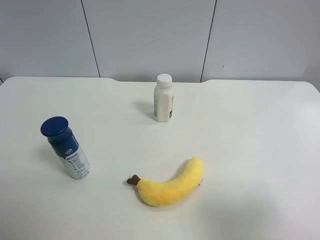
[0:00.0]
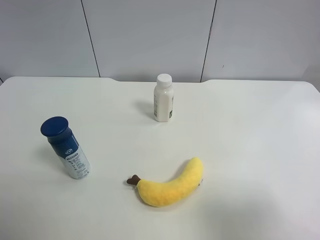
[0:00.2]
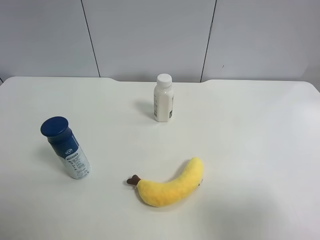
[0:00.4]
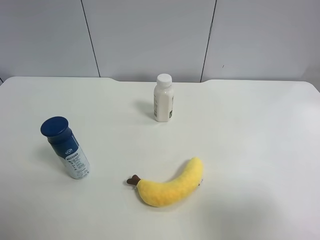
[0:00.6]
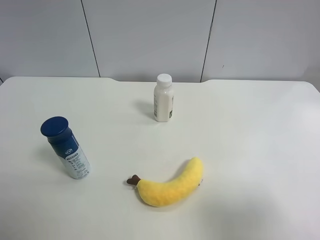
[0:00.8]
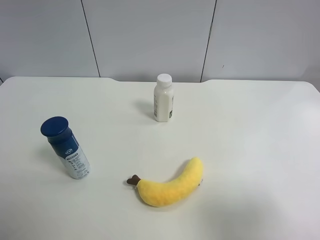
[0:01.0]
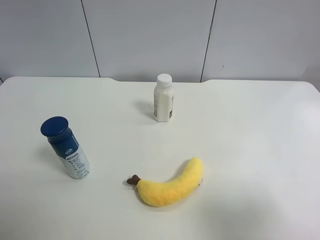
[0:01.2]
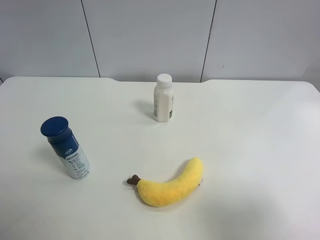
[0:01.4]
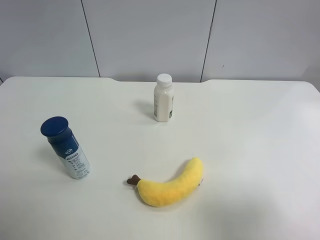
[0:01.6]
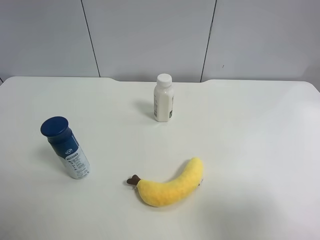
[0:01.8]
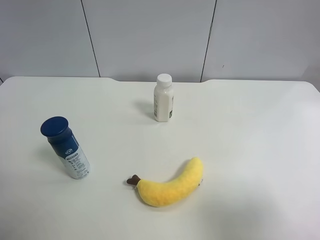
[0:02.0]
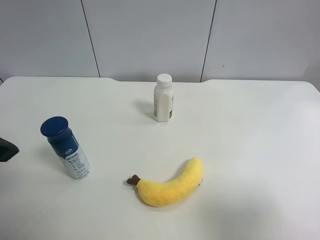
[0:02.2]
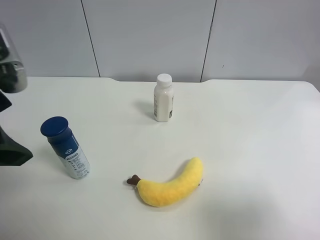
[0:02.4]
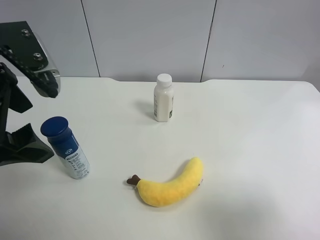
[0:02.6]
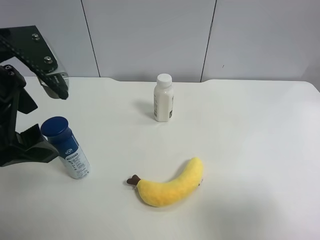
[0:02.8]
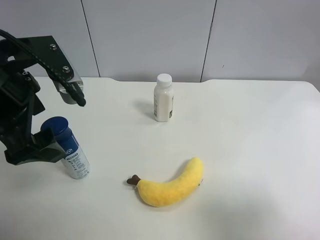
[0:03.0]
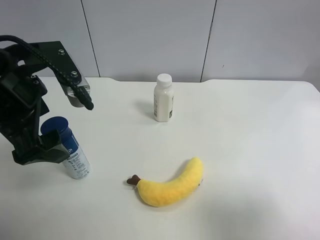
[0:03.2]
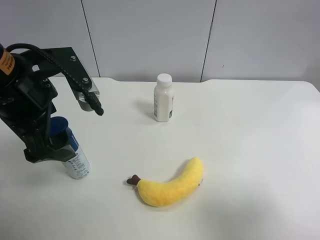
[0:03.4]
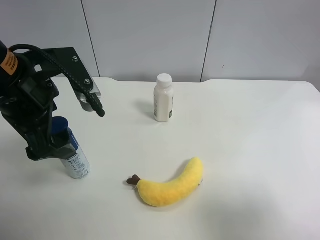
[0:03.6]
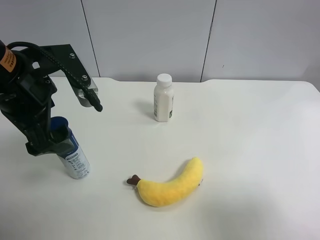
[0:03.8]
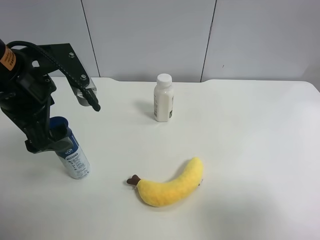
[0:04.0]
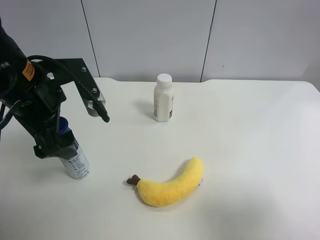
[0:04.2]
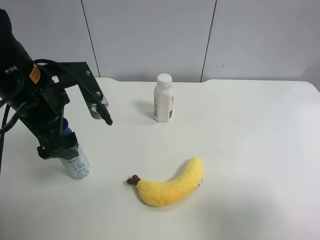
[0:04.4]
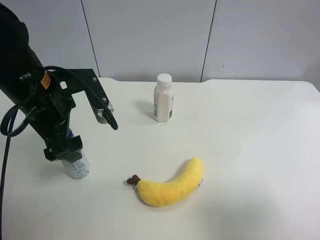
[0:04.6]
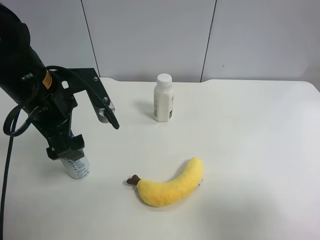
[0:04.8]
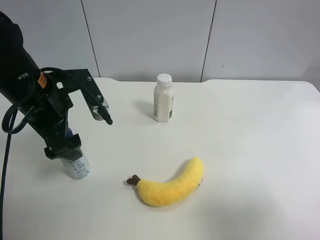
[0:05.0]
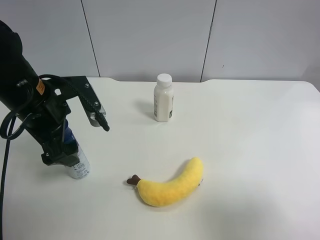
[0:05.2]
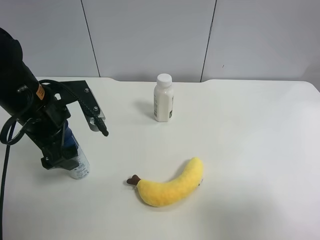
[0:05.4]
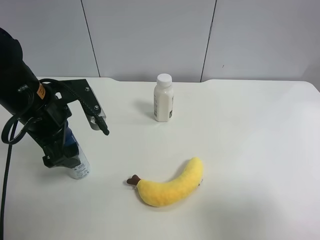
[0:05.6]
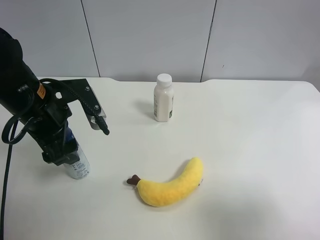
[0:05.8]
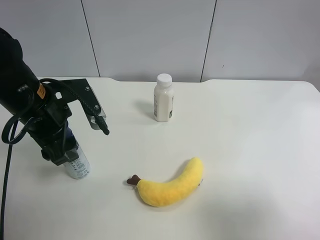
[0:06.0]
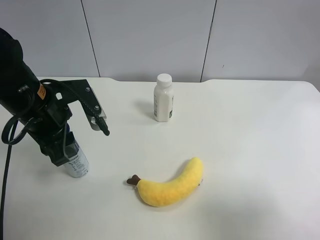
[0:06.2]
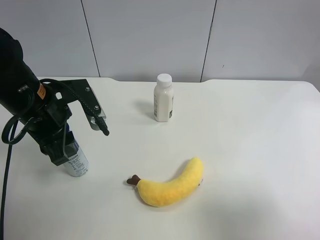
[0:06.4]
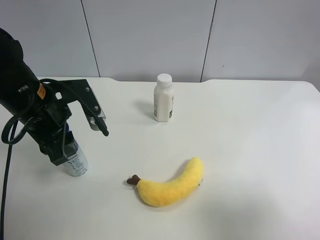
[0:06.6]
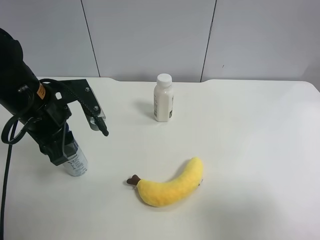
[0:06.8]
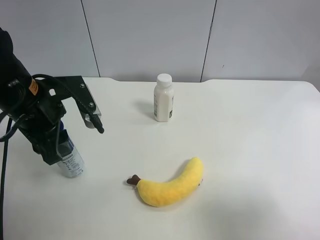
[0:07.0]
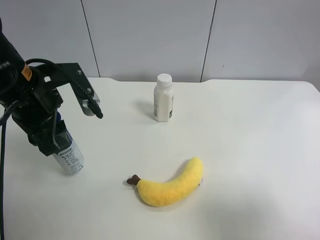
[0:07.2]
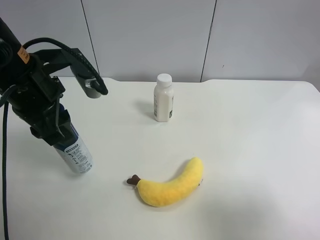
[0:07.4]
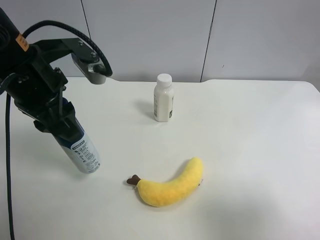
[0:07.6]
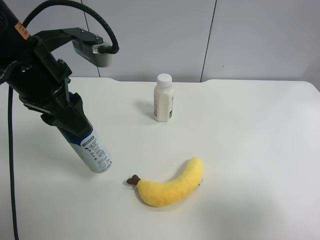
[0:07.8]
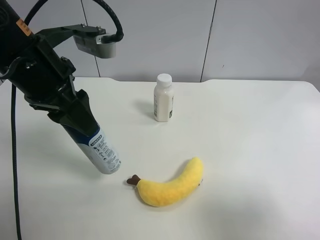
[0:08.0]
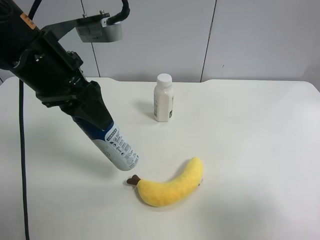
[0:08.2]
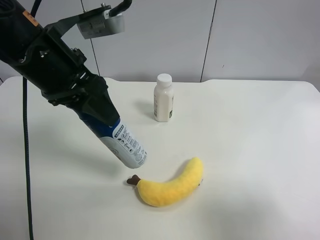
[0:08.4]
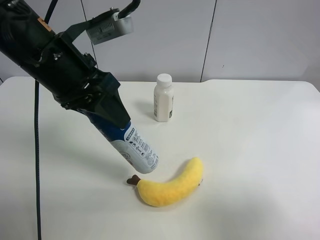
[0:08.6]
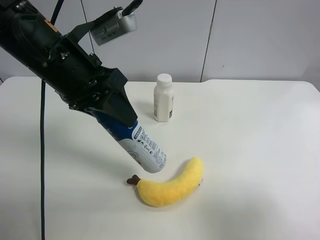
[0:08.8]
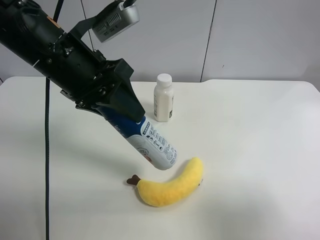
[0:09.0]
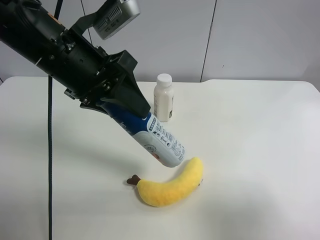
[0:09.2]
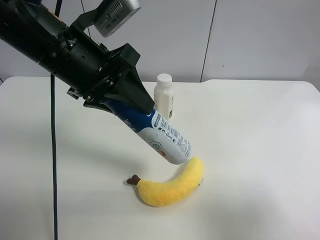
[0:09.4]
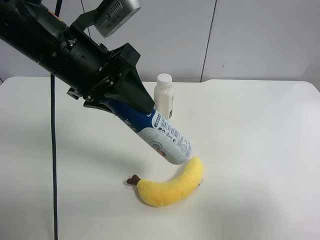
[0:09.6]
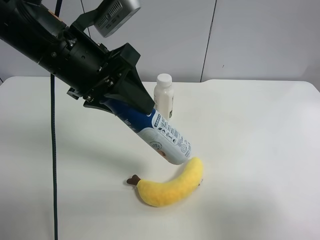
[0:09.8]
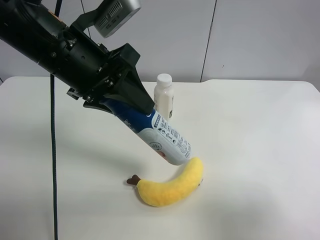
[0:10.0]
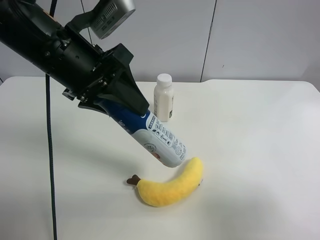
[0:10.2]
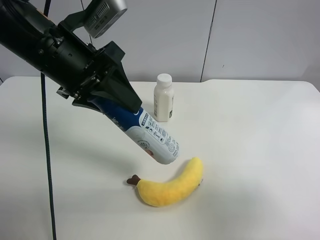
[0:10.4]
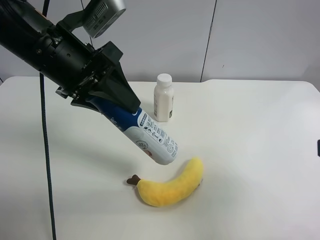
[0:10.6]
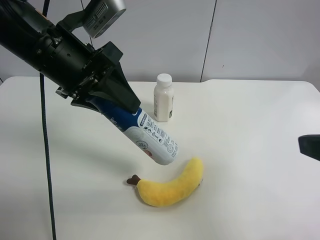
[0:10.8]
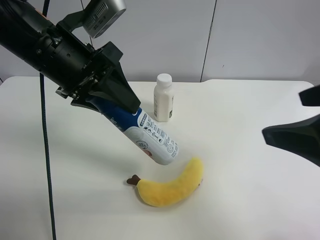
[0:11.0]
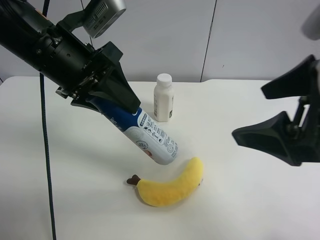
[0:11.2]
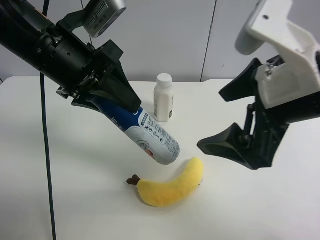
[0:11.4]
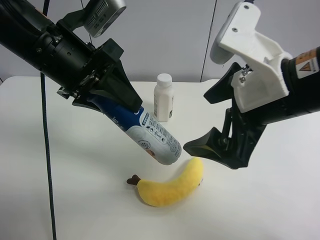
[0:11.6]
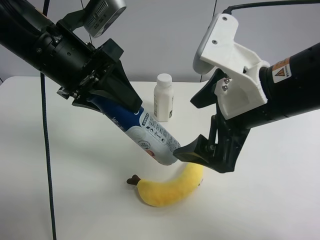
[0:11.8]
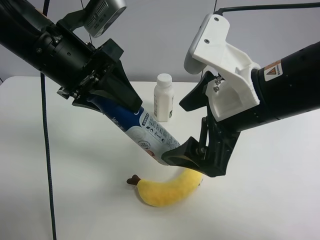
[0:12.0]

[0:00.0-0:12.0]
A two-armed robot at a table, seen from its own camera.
Task of the whole recording: use the left gripper to pick up the item and transfer it from the left gripper to the right gripper.
0:01.6 to 0:03.0: The left gripper goes some 15 cm to the right and forward.
0:03.0 to 0:04.4: The left gripper changes place by approximately 5 cm.
0:04.4 to 0:06.0: The left gripper closes.
0:06.0 to 0:07.6: The left gripper travels upward by some 5 cm.
0:09.0 to 0:10.4: The grippers stay close to where they were, moving slightly.
0:10.4 to 0:12.0: The right gripper moves to the left and forward, some 20 cm.

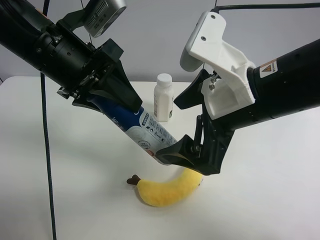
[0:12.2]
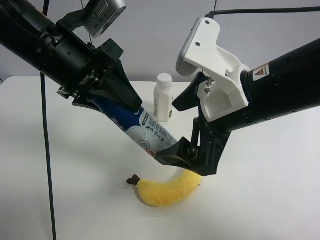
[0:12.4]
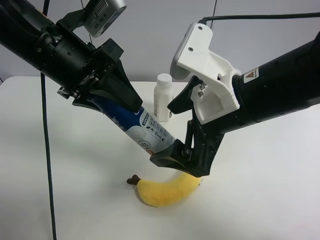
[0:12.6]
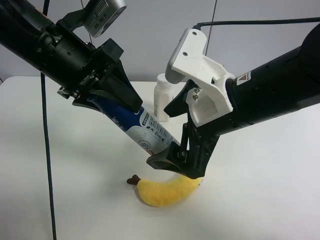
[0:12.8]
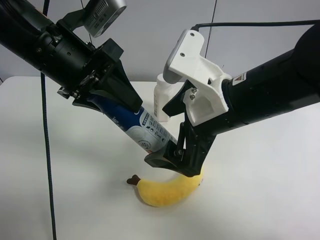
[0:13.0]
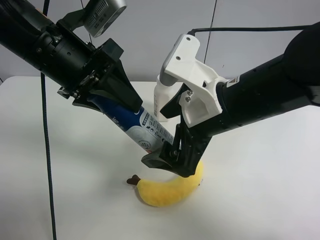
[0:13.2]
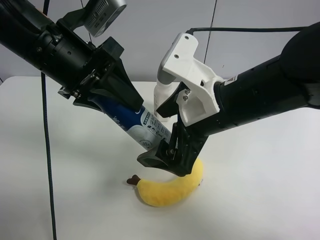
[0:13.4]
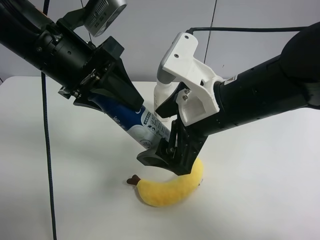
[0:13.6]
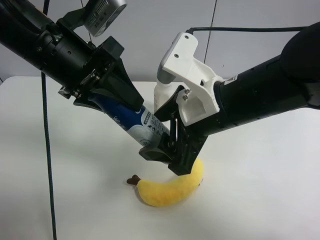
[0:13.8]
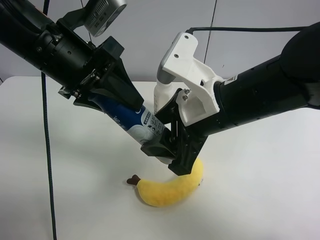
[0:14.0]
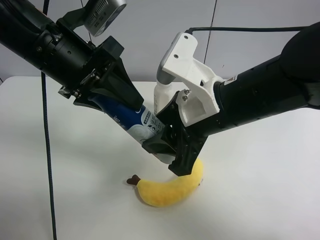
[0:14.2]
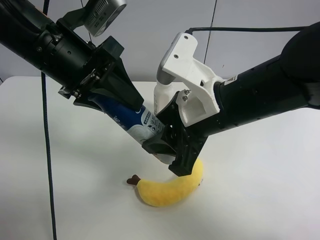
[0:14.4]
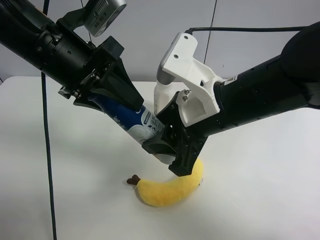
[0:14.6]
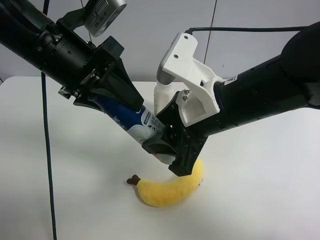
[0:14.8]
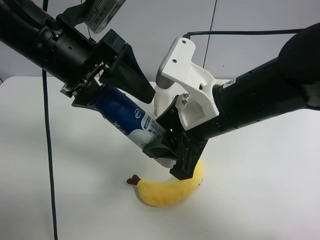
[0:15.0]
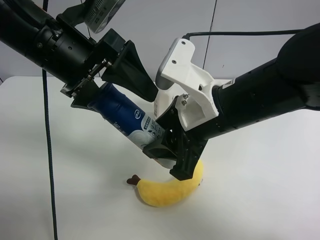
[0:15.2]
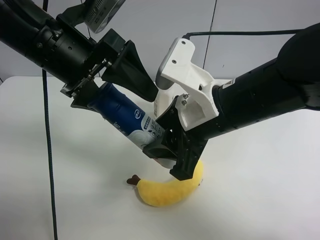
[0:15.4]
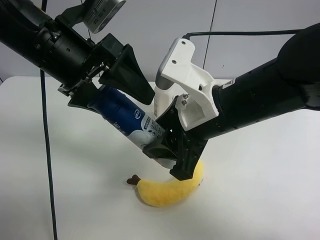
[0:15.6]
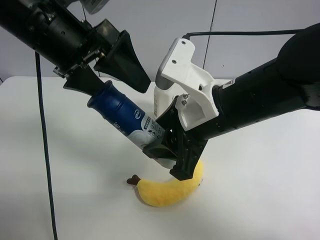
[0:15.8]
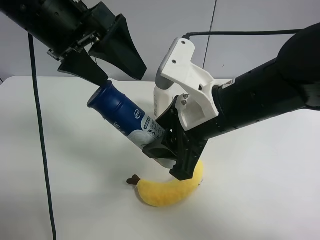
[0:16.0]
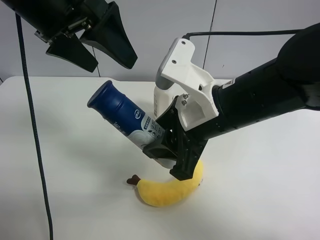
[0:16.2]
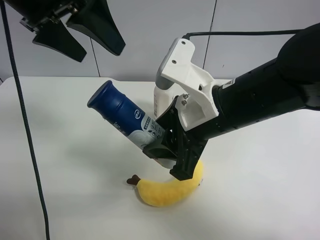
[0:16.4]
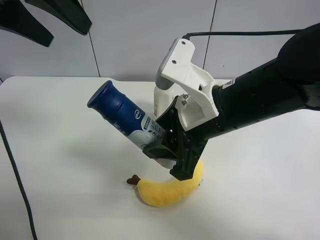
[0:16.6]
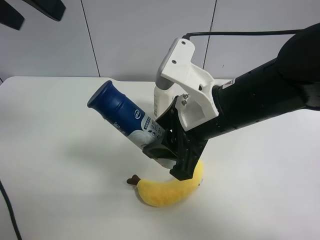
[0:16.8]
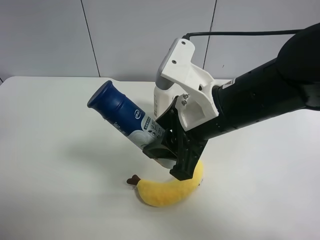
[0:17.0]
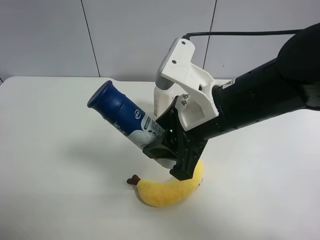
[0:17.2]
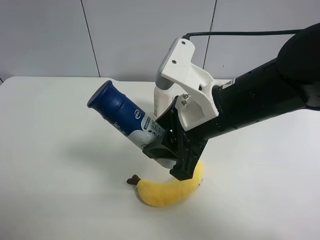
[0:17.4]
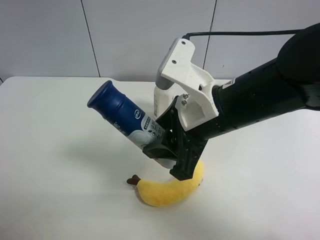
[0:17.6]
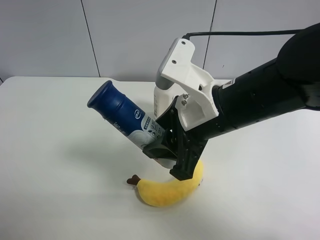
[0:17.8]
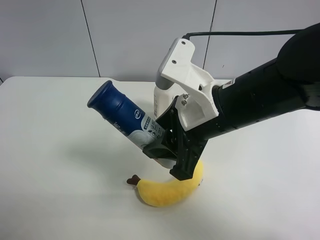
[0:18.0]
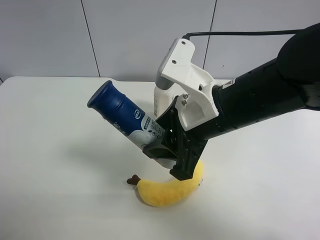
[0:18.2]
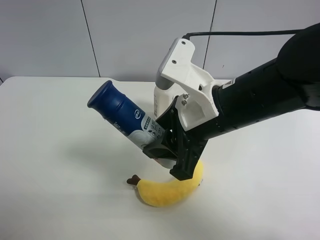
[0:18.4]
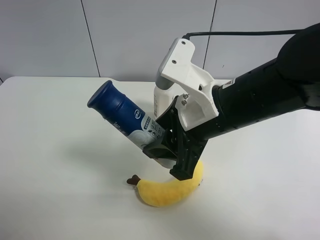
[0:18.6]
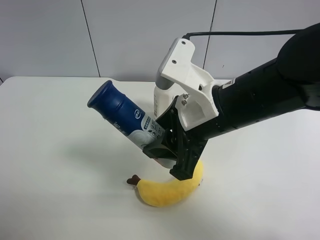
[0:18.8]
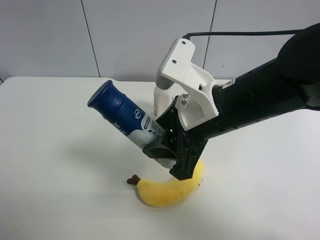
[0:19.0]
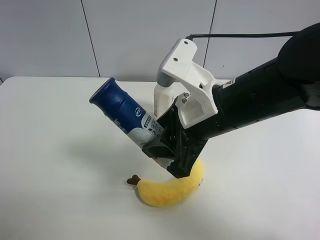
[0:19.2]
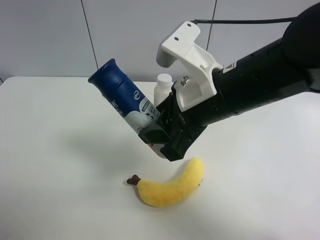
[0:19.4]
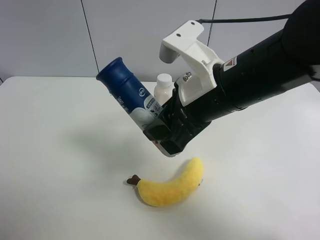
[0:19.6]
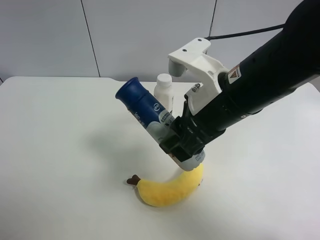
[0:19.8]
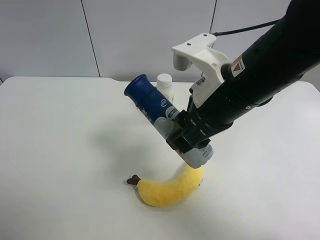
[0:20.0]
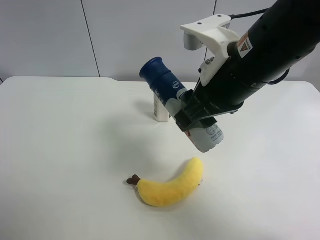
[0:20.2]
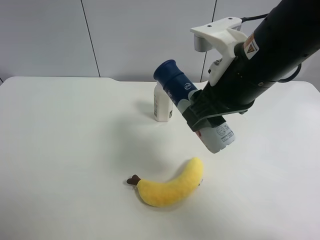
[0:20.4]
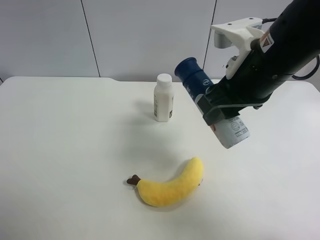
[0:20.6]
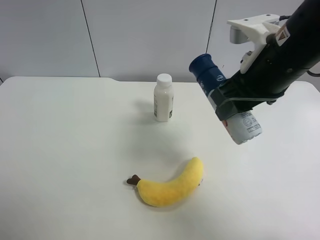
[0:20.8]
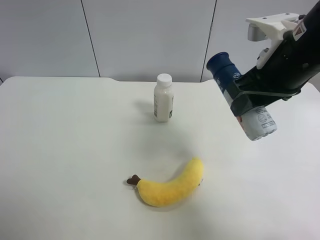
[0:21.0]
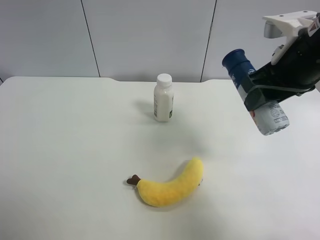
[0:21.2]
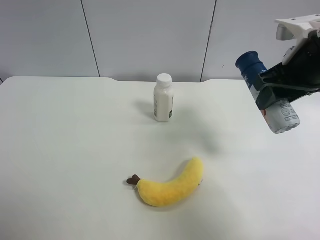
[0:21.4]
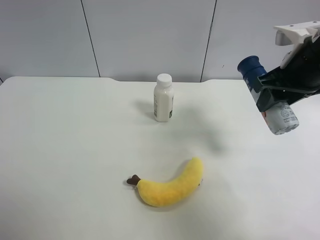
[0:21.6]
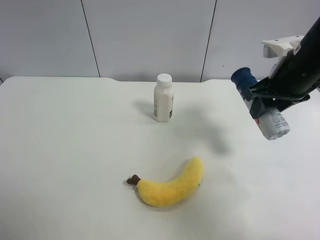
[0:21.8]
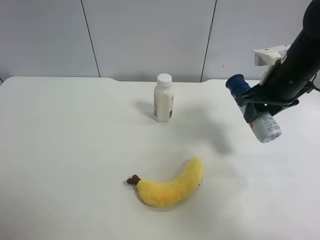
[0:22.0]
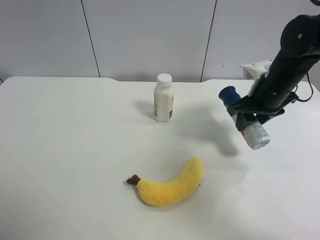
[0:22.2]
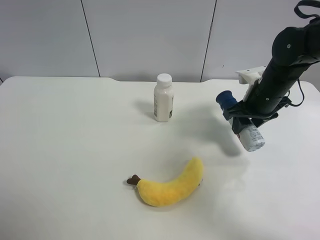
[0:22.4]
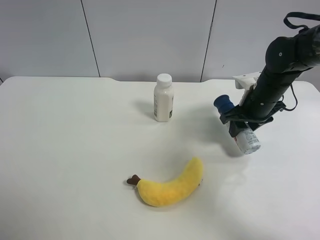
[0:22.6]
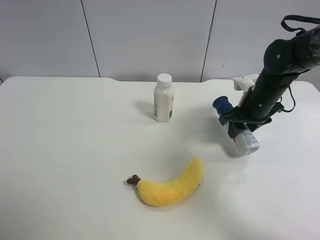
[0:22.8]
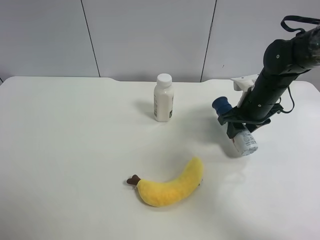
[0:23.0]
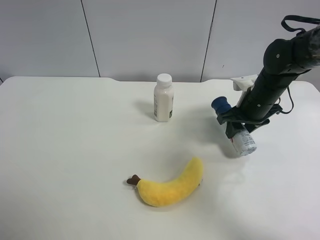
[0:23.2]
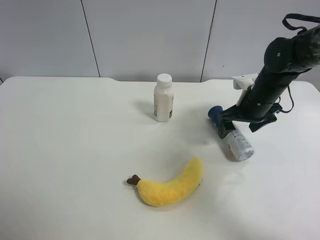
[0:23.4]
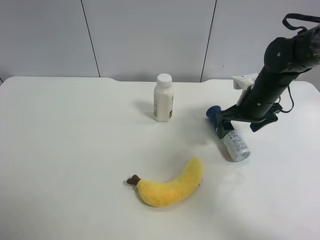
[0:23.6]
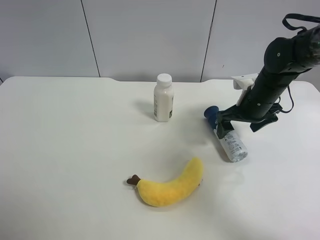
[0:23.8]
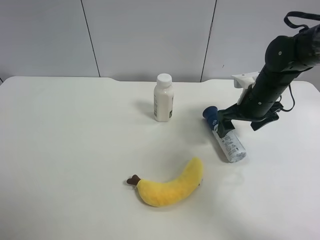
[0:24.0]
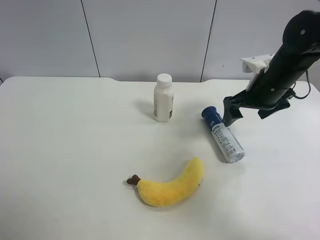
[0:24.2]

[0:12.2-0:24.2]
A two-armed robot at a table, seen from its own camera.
Task of the whole recording: use the left gripper to pick up the item and transfer it from the left gripper to the right gripper.
0:12.2 to 0:13.8: The right gripper closes.
0:13.8 to 0:15.2: The left gripper opens up; the right gripper closes up.
0:15.2 to 0:16.6: The left gripper heads upward and to the left, covering approximately 15 cm.
0:16.6 to 0:18.2: The left gripper moves backward, approximately 25 cm.
0:19.8 to 0:21.2: The right gripper travels to the right and forward by some 15 cm.
0:21.2 to 0:22.6: The right gripper travels downward and forward by some 15 cm.
0:22.6 to 0:24.2: The right gripper is displaced upward by roughly 5 cm, and opens.
